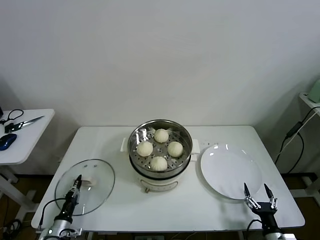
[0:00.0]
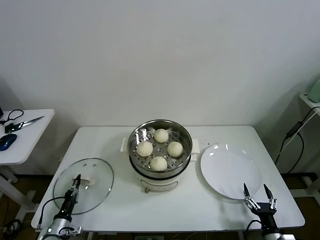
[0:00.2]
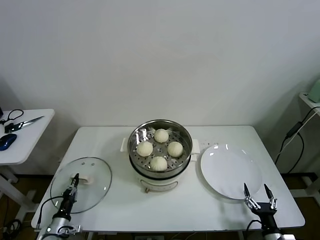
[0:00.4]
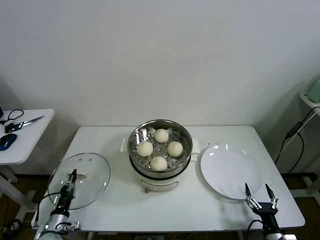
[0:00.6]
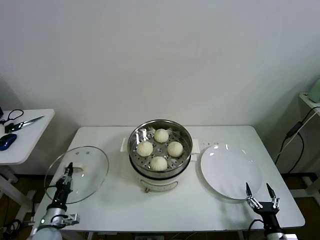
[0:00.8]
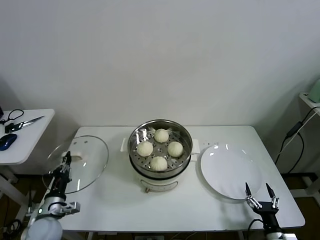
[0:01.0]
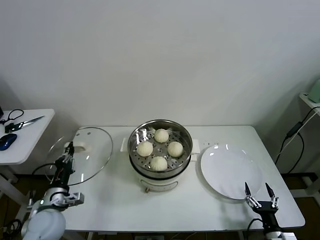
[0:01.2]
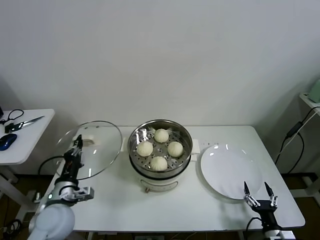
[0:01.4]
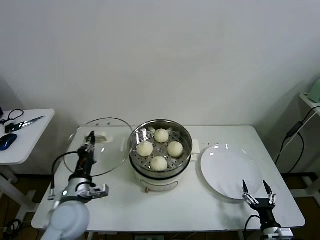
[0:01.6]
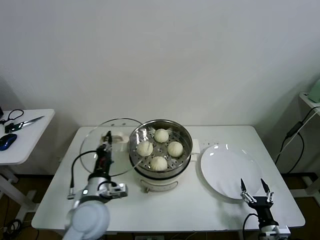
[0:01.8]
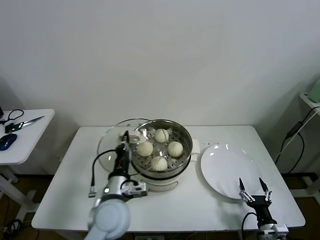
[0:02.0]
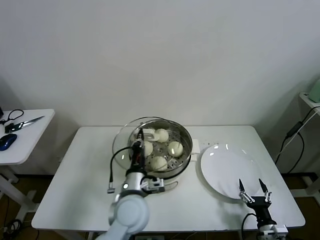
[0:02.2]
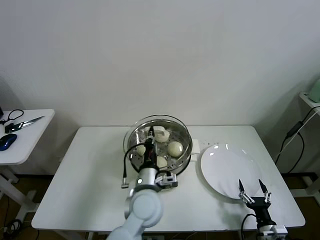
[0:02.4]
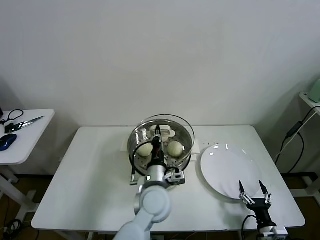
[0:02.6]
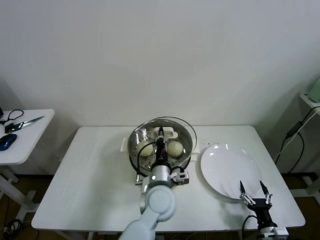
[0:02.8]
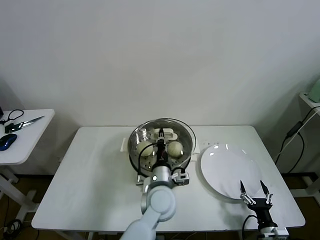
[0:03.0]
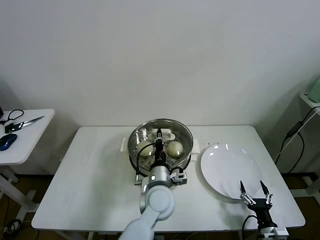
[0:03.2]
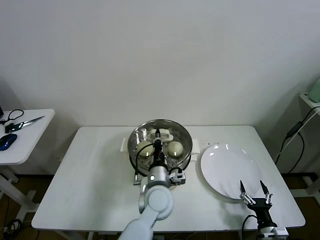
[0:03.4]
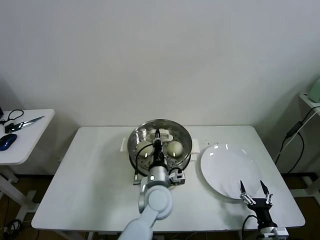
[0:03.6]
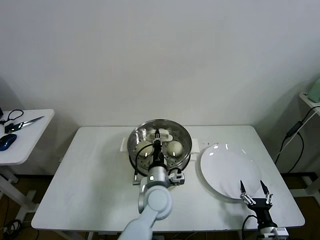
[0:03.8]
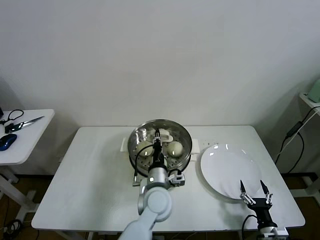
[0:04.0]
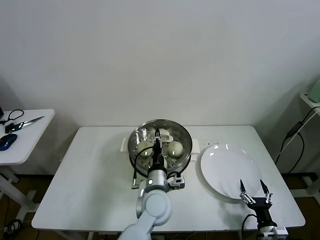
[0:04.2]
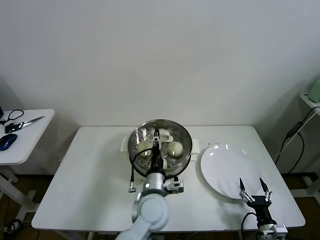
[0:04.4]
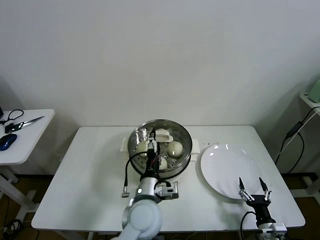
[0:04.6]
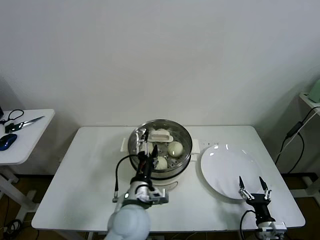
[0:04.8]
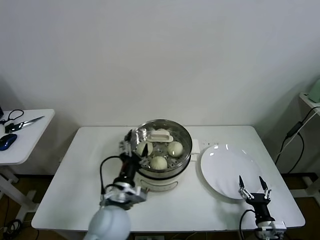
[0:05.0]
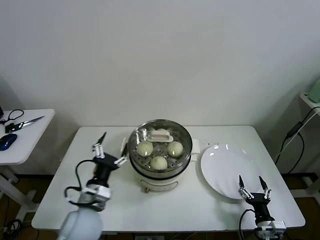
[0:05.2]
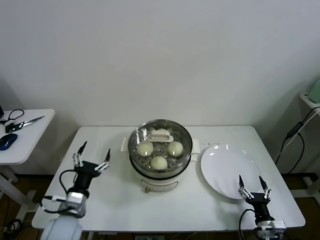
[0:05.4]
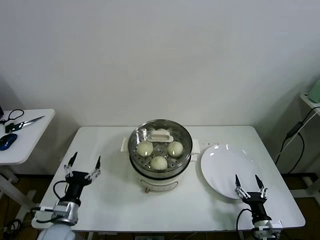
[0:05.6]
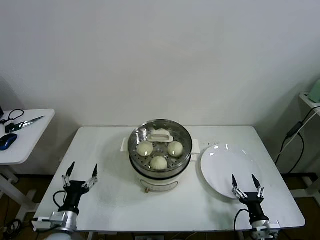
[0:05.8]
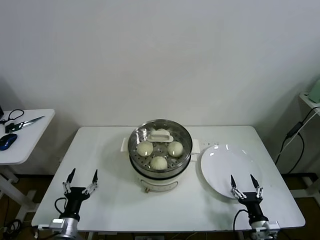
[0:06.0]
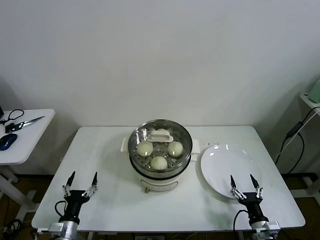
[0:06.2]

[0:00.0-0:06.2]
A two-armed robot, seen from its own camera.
Task of the whole recording: take steamed baozi put them in steamer then cover it.
Step, 0:00.4 to 0:04.2: Place the pot lid on the steamer with left gripper.
0:00.0 to 0:01.6: The left gripper heads upward and to the right, covering approximately 30 cm.
0:01.6 to 0:03.2: The left gripper heads to the right, covering about 25 cm.
0:03.2 to 0:04.6: The left gripper shifts by about 5 cm, and opens.
0:04.6 to 0:06.2: The left gripper goes about 30 cm to the left and downward.
